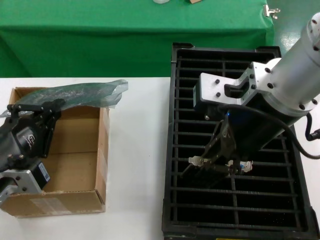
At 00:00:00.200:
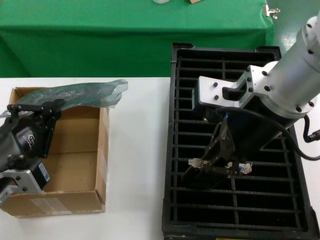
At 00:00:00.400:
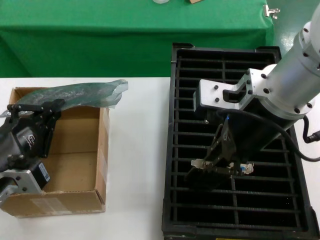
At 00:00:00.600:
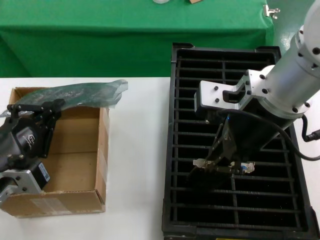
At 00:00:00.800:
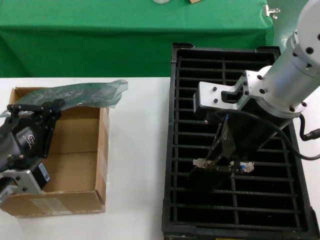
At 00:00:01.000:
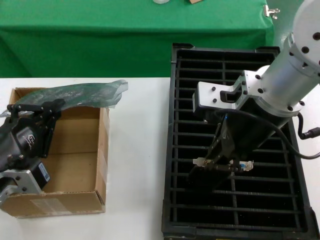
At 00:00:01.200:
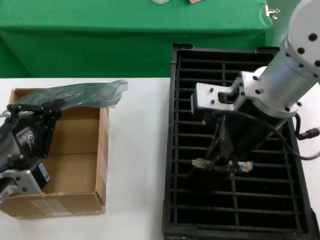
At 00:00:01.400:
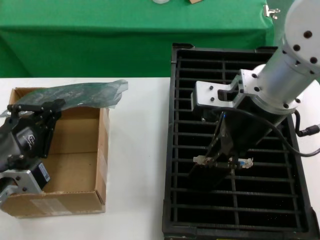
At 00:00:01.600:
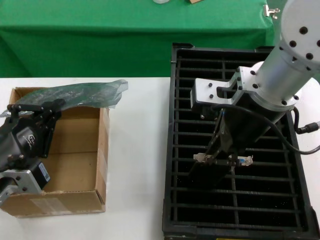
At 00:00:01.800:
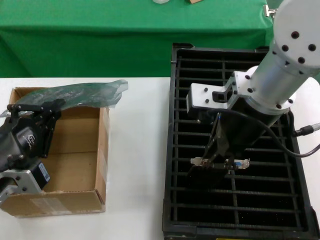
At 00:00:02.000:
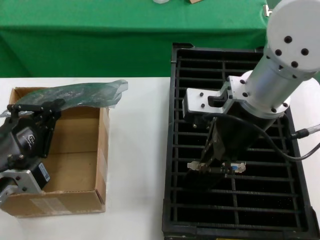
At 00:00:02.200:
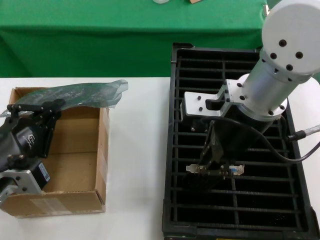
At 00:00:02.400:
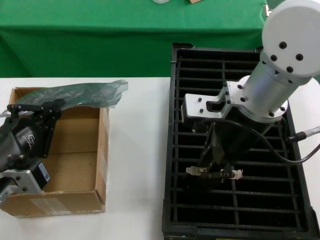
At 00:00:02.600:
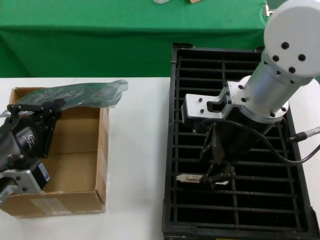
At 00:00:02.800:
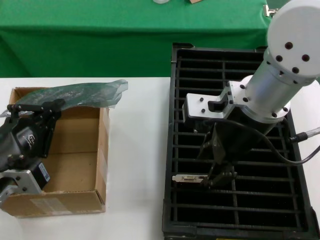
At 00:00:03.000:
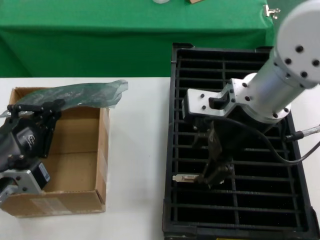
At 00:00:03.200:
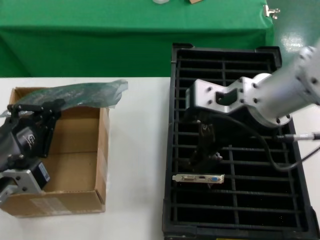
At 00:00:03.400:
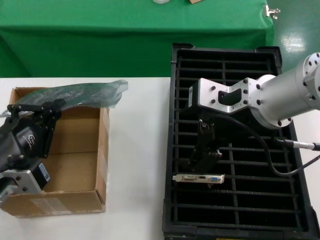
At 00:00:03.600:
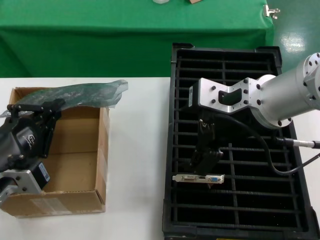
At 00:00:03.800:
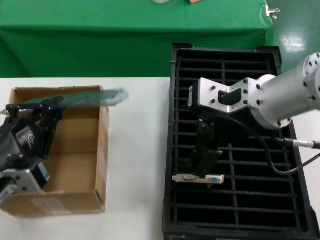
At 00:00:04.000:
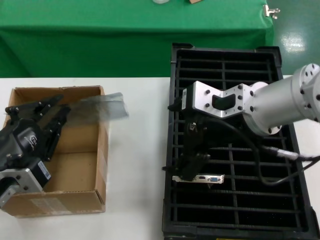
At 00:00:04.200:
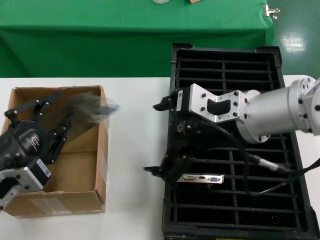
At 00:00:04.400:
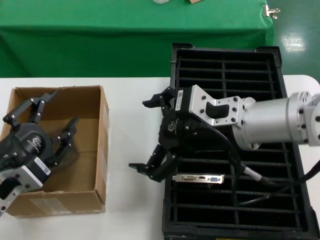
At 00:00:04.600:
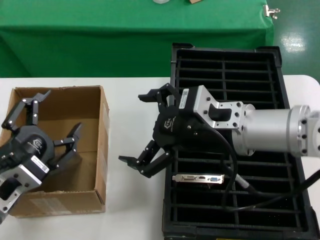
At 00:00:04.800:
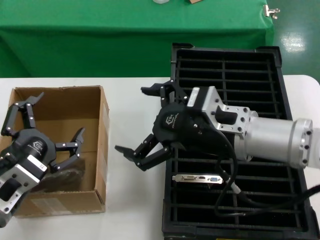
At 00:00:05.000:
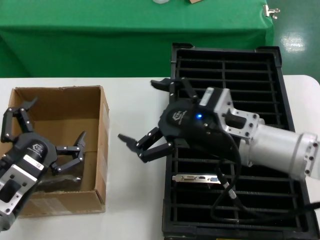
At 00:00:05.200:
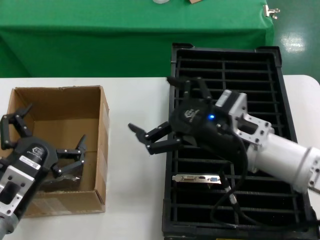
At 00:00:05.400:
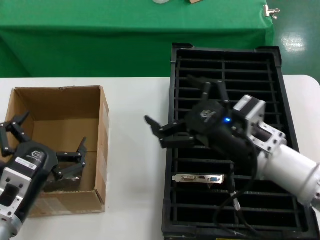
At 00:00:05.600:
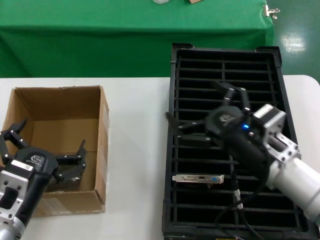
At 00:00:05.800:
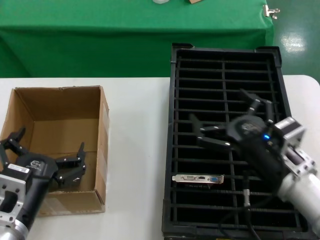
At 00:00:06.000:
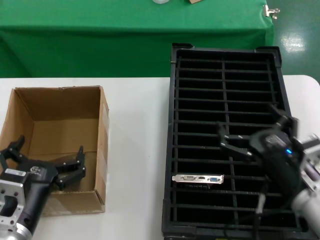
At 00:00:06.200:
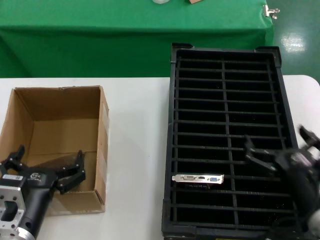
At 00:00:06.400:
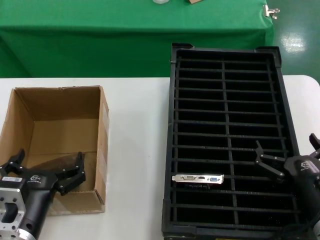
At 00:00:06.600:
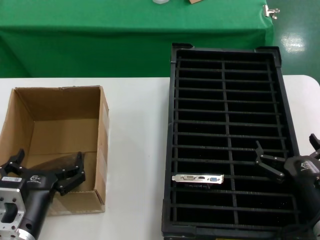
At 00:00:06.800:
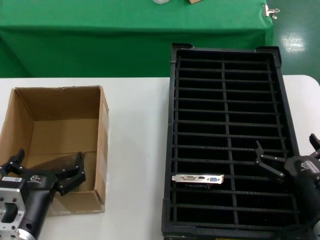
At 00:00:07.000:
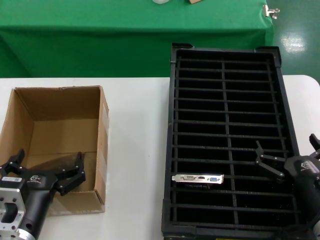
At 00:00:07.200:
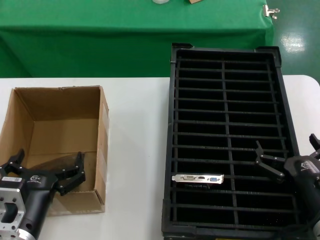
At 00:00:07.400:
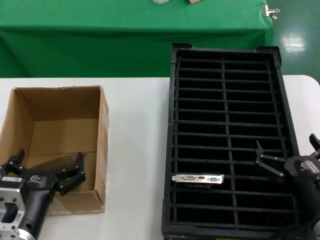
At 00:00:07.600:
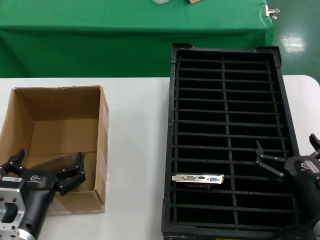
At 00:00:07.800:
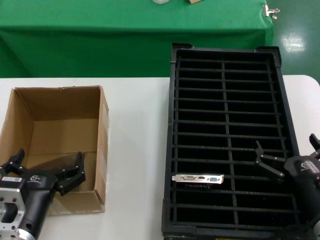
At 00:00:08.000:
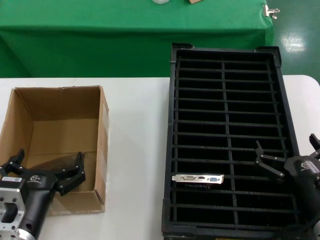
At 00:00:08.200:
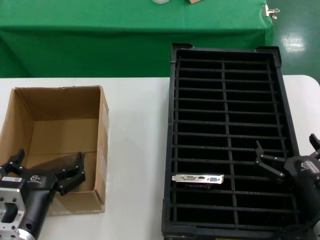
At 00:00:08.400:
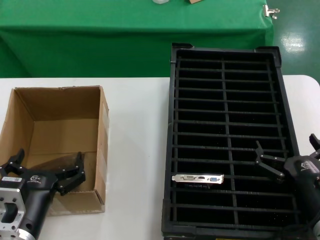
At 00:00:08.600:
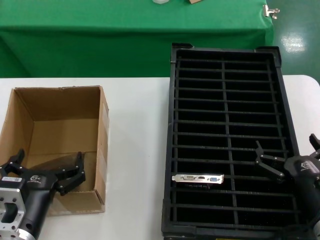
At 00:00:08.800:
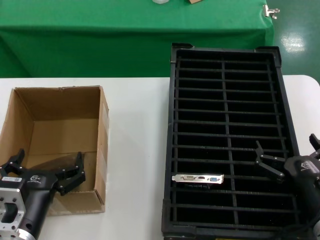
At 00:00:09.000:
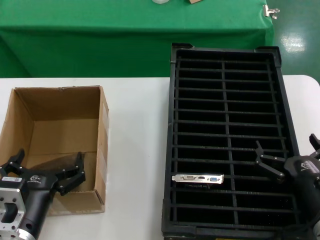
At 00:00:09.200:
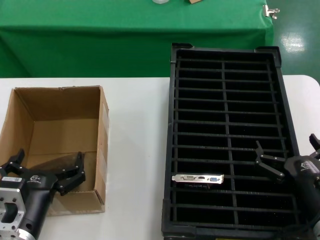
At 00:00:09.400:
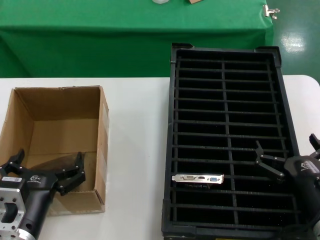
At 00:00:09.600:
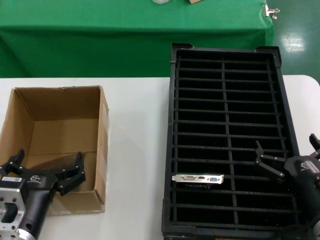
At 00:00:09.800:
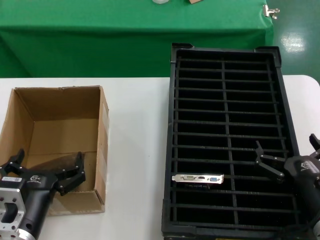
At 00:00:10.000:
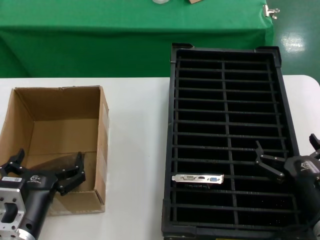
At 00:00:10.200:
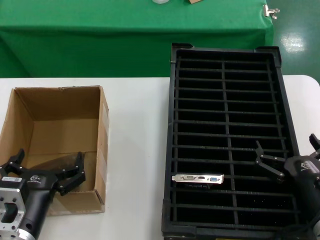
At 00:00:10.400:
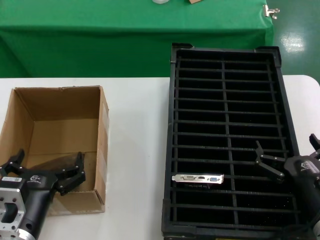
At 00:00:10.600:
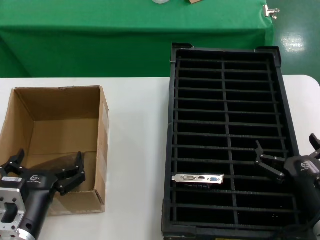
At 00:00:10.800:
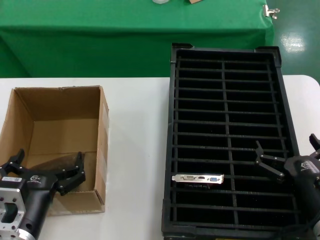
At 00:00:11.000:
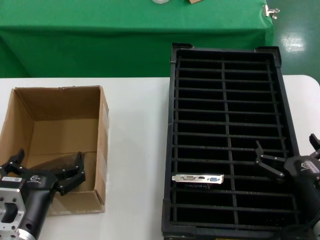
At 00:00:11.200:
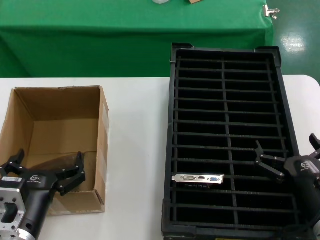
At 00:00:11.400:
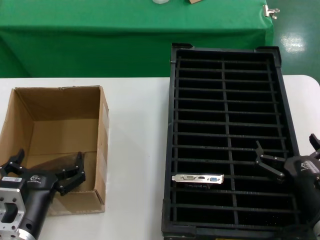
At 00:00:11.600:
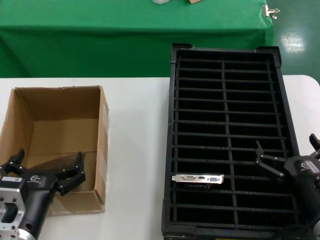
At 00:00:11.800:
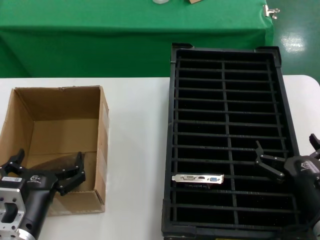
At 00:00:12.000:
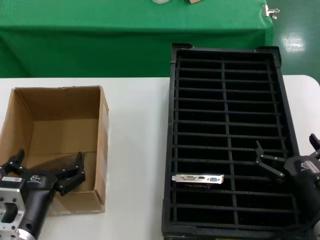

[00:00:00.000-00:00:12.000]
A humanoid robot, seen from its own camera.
Task of the whole recording: take out graphics card from box remove packaging put into black container.
Step, 00:00:00.000 to 00:00:02.800: Place the hard disk in the hard disk enclosure.
Step, 00:00:03.000 to 00:00:04.800: Place the down the bag.
00:00:00.000 to 00:00:01.600: The right hand changes place by approximately 5 cm.
00:00:01.600 to 00:00:03.000: The hands move only a little.
00:00:03.000 to 00:00:04.400: The right hand is displaced downward by some 5 cm.
00:00:04.400 to 00:00:06.000: The right hand is displaced downward and to the right by about 20 cm. Meanwhile the left hand goes some 10 cm downward.
00:00:06.000 to 00:00:07.600: The right hand changes place by approximately 5 cm.
00:00:07.600 to 00:00:12.000: Both hands stay about where they are.
